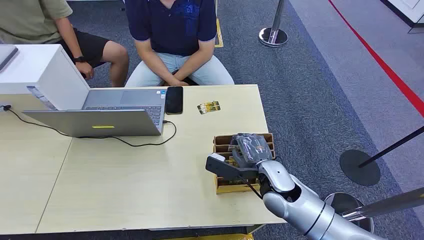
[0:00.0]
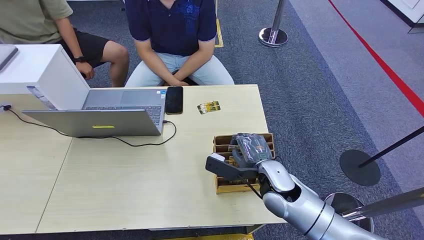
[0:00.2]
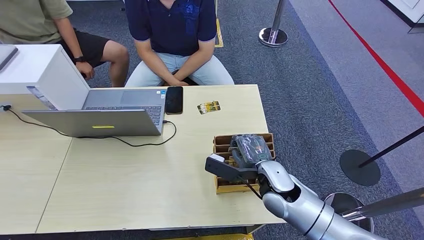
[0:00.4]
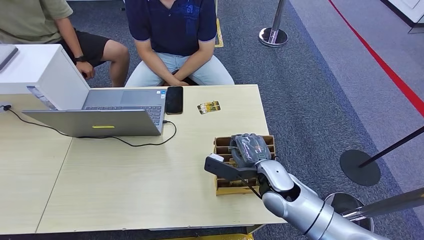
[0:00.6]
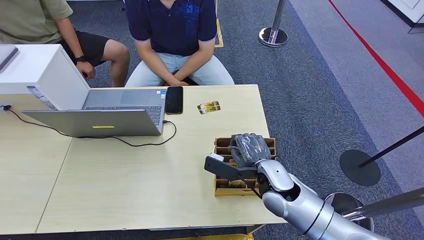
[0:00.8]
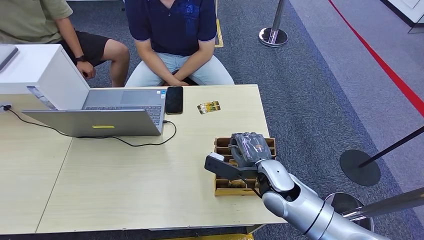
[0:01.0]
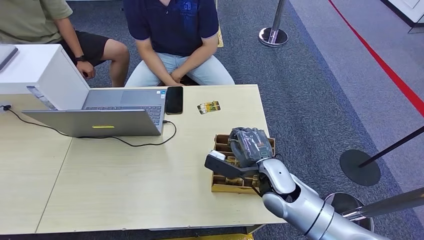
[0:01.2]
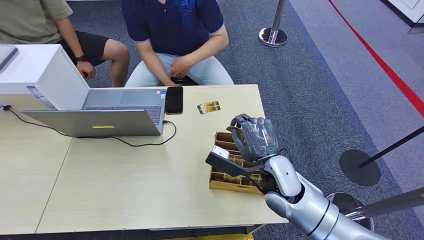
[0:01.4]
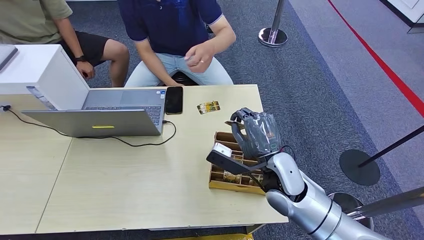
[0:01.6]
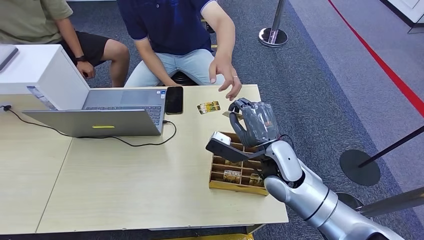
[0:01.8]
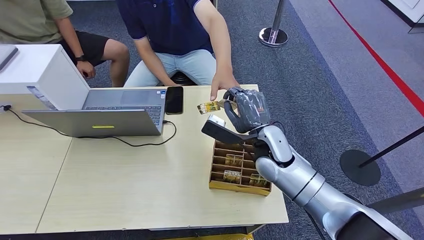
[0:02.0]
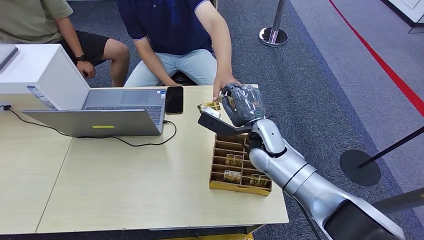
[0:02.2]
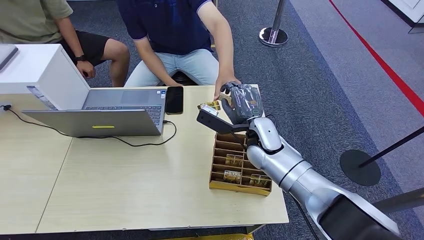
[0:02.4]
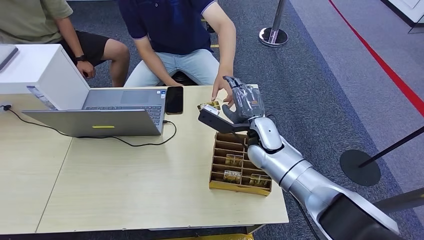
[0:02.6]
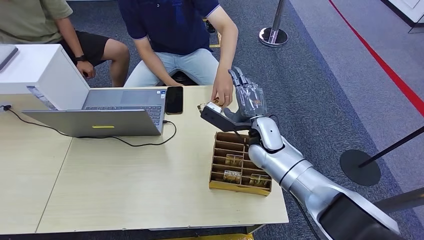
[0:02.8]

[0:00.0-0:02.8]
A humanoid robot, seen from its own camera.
Step, 0:00.0 to 0:01.4: Pick up the room card from the card holder.
Step, 0:01.8 to 0:02.8: Hand the room card to the target.
0:01.4 to 0:02.8: The right hand heads forward, covering approximately 10 cm.
